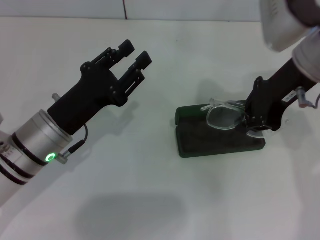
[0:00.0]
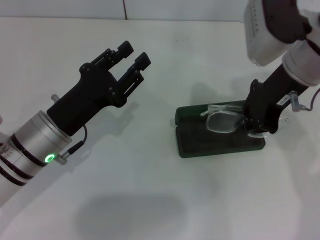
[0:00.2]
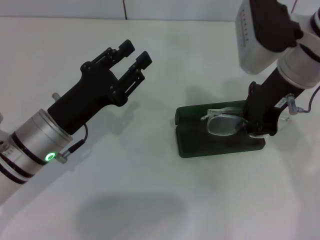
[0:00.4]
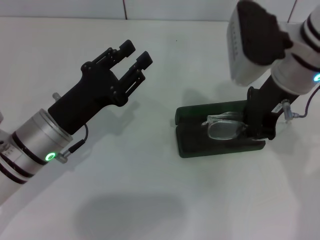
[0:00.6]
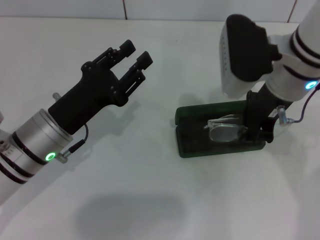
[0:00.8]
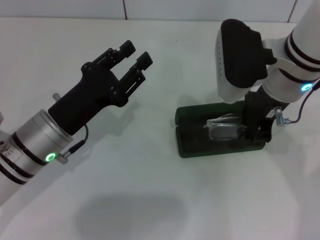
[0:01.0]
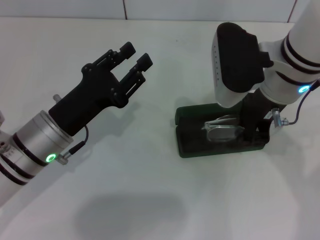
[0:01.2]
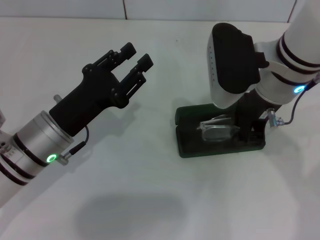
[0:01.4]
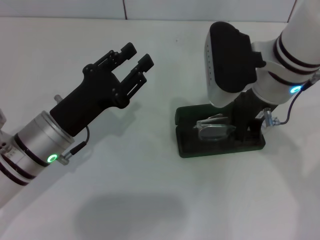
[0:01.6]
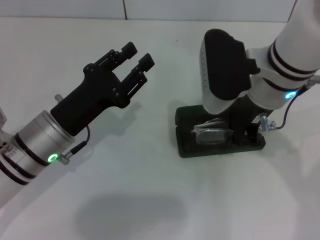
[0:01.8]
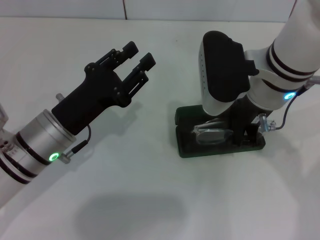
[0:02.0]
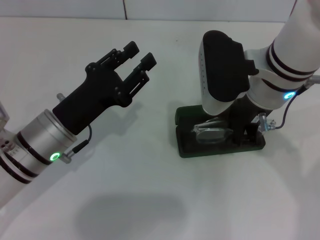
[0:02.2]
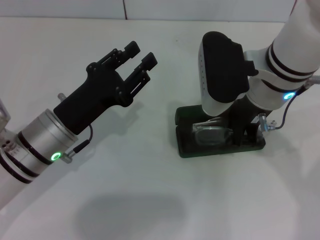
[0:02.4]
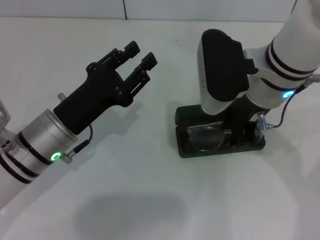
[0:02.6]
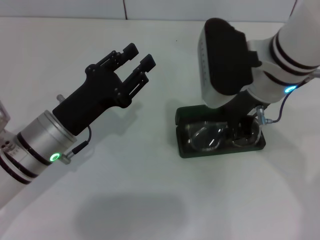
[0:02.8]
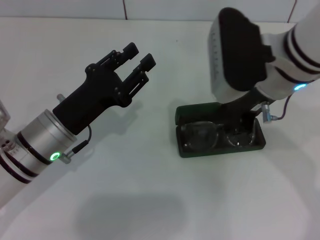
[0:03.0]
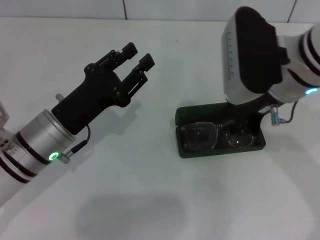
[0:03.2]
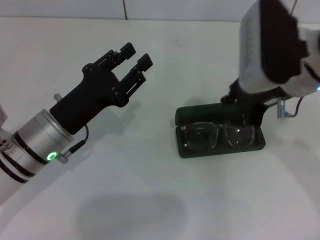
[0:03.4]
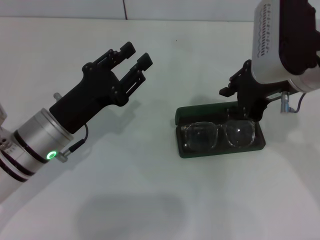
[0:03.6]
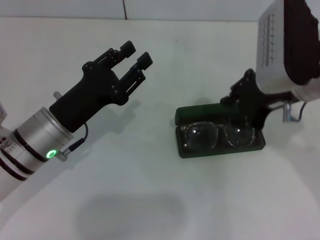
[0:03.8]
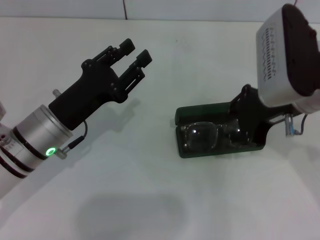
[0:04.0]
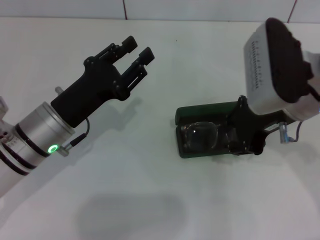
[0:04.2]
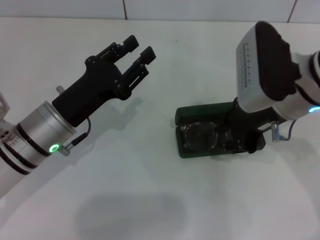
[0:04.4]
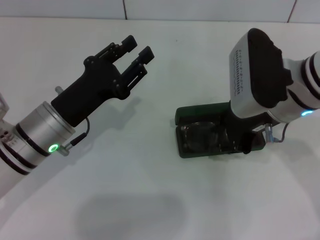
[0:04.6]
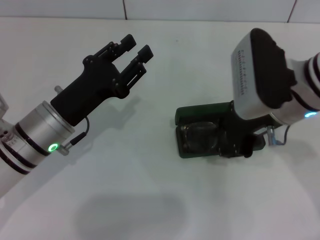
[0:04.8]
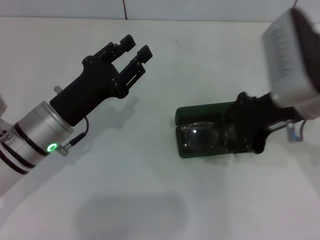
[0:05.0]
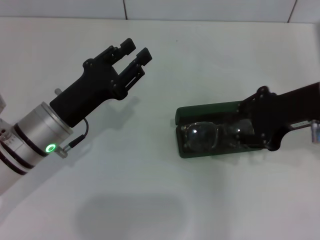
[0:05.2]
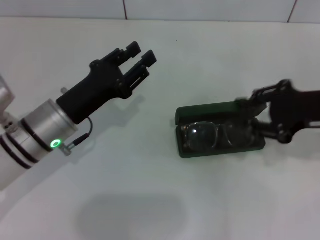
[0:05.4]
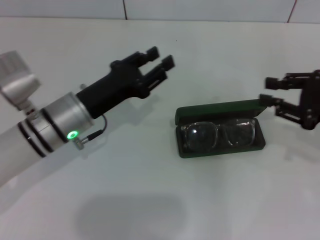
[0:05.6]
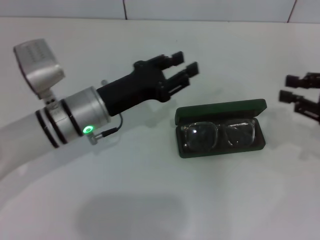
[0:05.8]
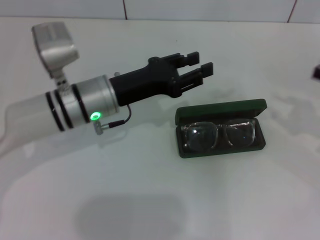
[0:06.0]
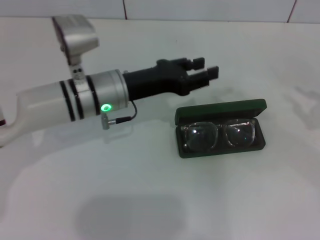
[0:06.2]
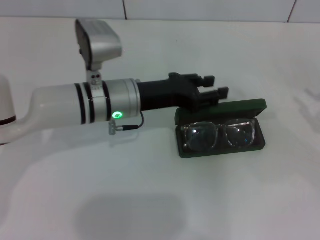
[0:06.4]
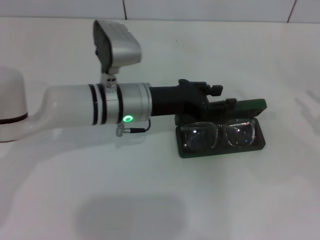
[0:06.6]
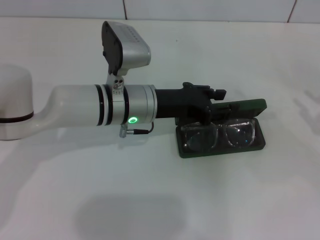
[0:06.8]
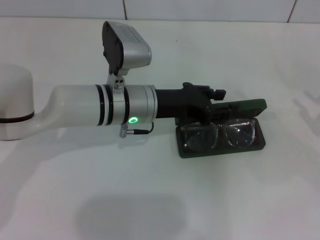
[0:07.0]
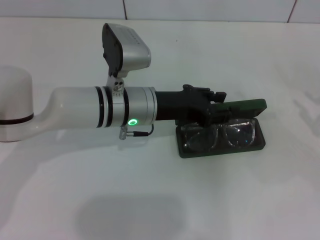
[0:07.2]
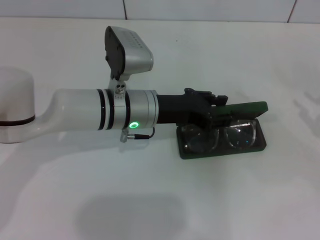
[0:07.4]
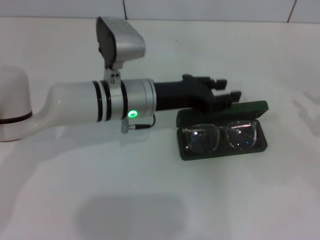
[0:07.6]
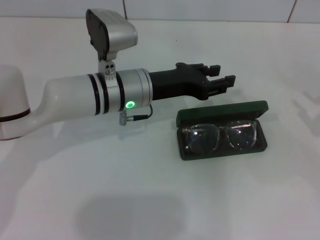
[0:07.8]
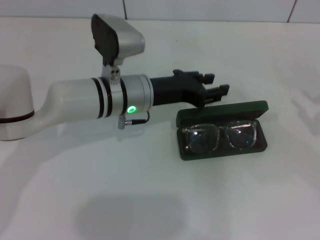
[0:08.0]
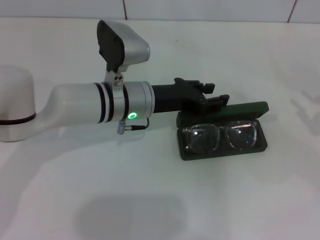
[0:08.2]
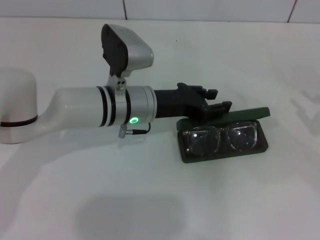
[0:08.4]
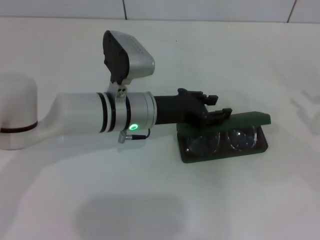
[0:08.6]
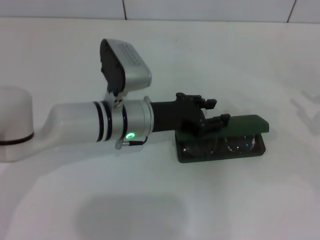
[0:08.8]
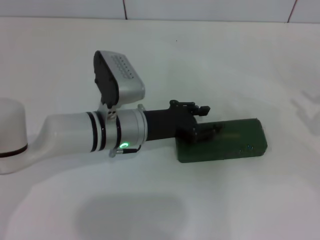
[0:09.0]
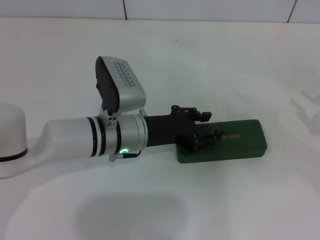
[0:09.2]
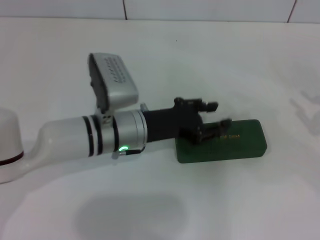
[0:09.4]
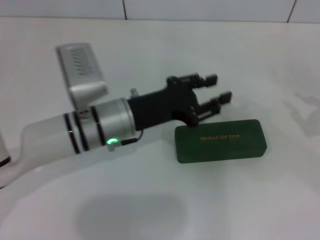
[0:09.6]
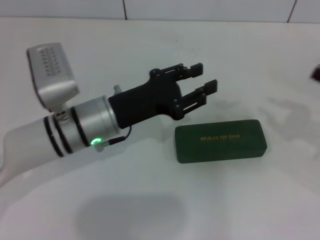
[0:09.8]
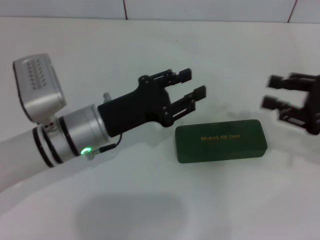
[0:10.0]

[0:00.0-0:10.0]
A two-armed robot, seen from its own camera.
Step, 0:00.0 to 0:02.8: Put the glasses into the case with your right hand.
Step, 0:03.0 to 0:08.8: Close the glasses case with your left hand.
0:00.0 to 0:01.4: The right gripper heads to the left, covering roughly 5 cm.
0:01.4 to 0:02.8: There are only small adjustments of the grippers.
0:02.8 to 0:04.2: The right gripper ends up approximately 5 cm from where it was.
0:04.2 to 0:05.8: The left gripper moves about 5 cm. The right gripper is displaced to the right by roughly 15 cm.
0:05.8 to 0:07.2: Both grippers move to the right, some 5 cm.
0:07.2 to 0:08.6: The grippers stay close to where they were, moving slightly.
0:08.6 to 0:10.0: The left gripper travels to the left and backward by about 10 cm, while the right gripper travels to the left by some 10 cm.

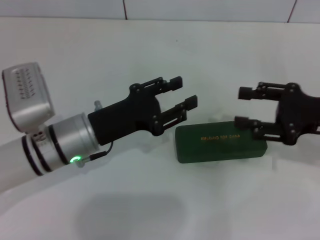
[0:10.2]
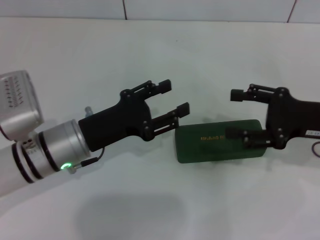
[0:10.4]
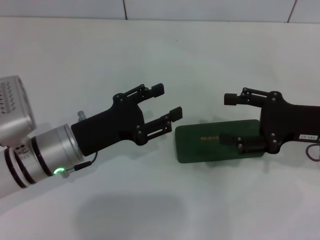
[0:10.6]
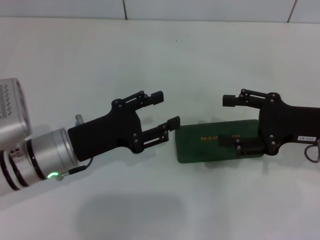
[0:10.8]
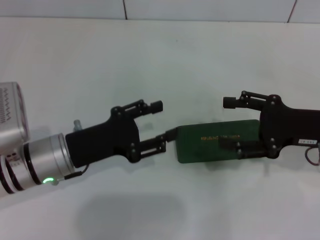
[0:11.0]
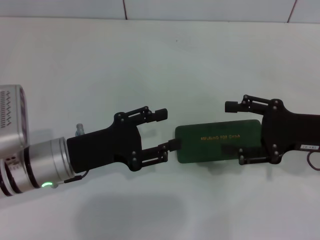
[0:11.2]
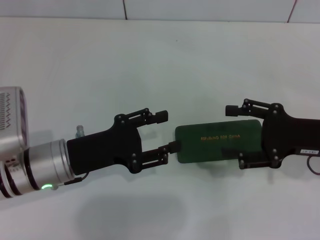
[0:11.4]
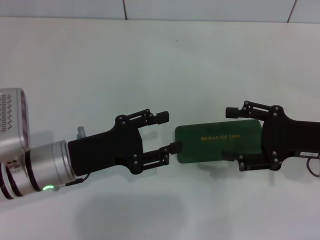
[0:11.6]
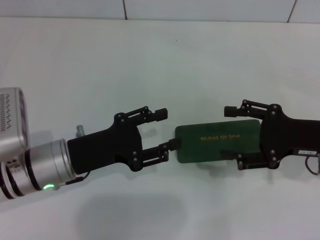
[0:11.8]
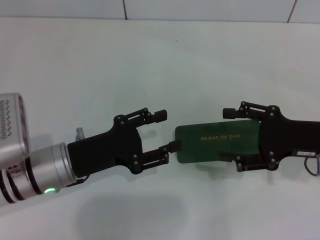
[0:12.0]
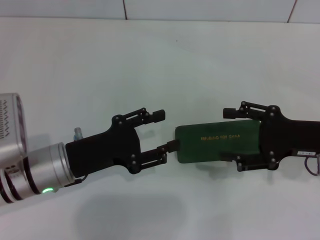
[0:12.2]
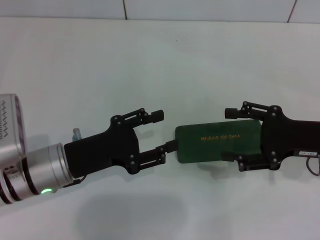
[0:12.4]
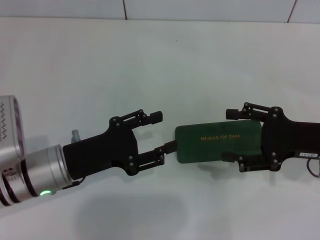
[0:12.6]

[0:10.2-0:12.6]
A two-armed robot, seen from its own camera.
0:10.2 to 0:11.4: The right gripper opens its fingers.
0:11.4 to 0:12.6: Neither gripper changes place.

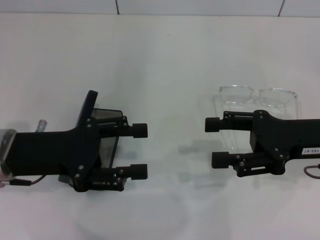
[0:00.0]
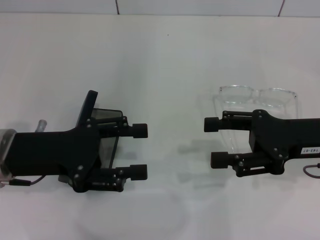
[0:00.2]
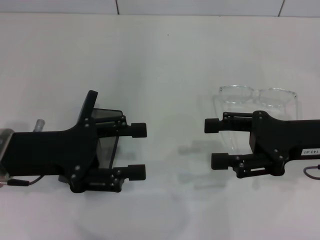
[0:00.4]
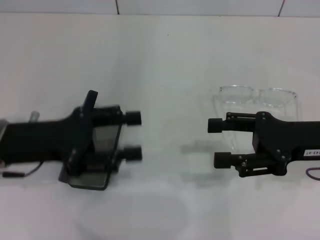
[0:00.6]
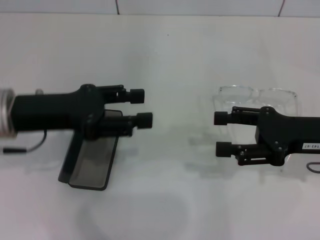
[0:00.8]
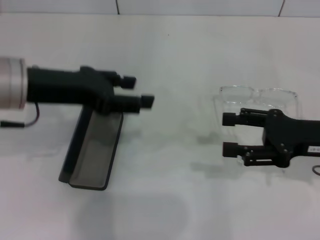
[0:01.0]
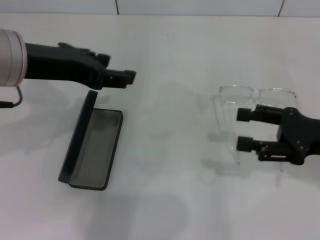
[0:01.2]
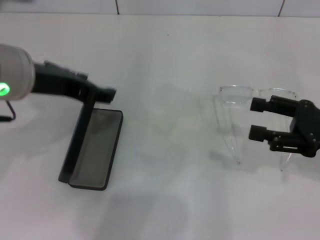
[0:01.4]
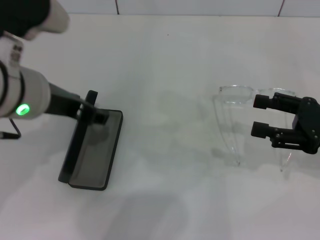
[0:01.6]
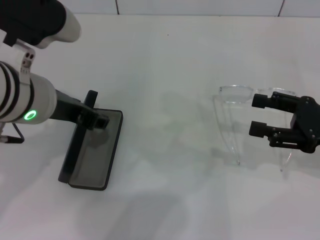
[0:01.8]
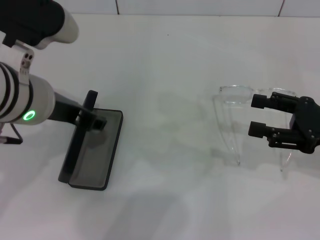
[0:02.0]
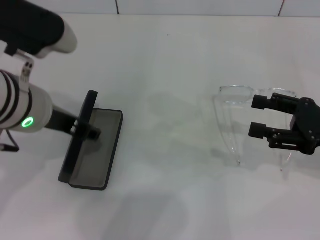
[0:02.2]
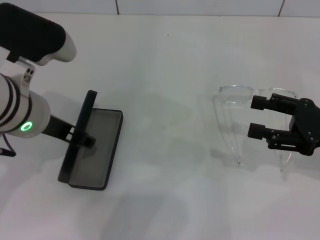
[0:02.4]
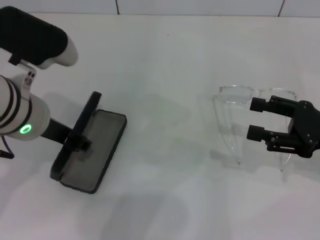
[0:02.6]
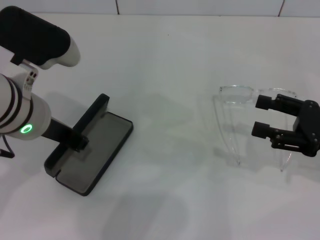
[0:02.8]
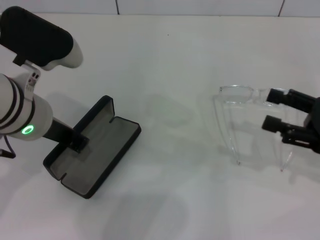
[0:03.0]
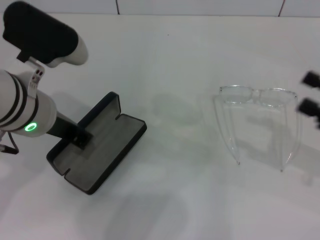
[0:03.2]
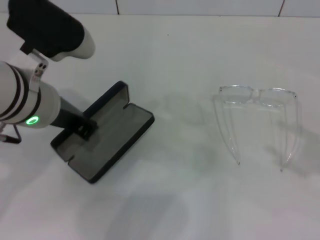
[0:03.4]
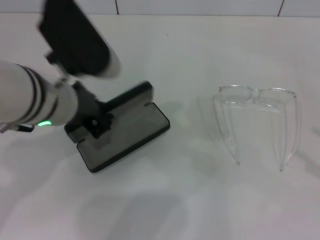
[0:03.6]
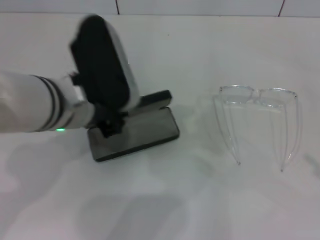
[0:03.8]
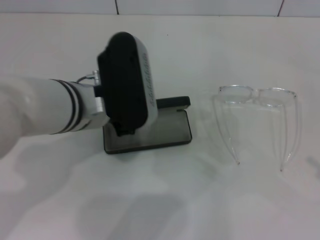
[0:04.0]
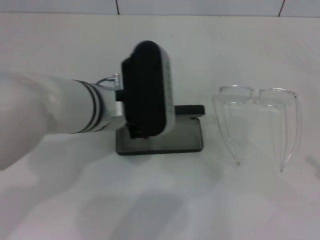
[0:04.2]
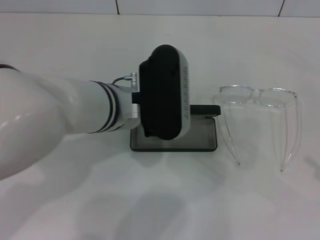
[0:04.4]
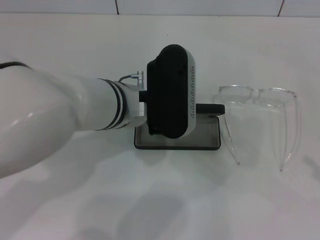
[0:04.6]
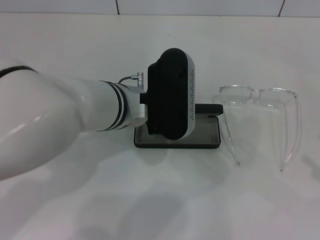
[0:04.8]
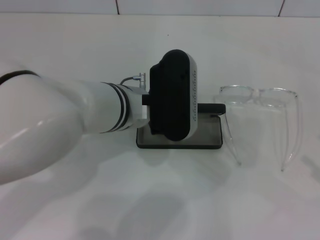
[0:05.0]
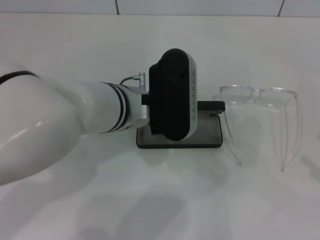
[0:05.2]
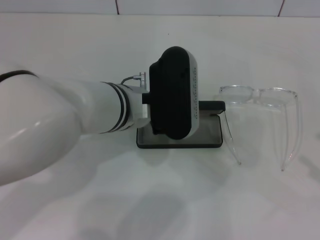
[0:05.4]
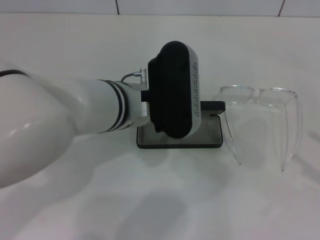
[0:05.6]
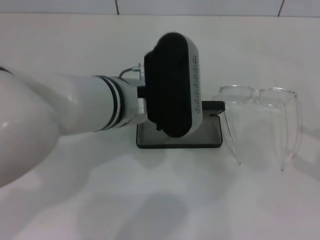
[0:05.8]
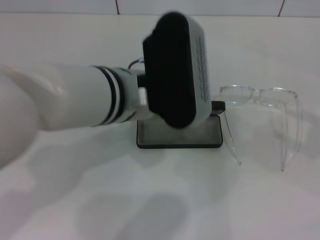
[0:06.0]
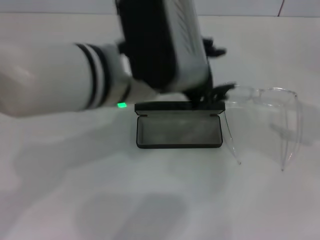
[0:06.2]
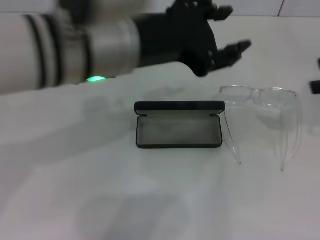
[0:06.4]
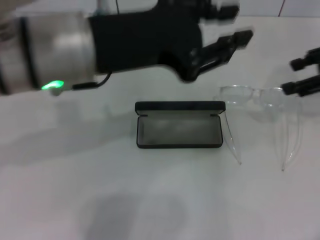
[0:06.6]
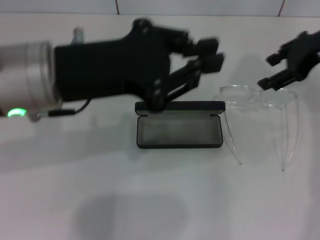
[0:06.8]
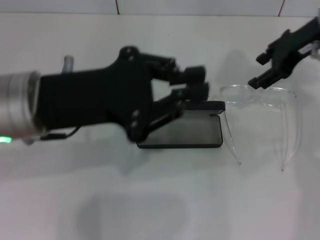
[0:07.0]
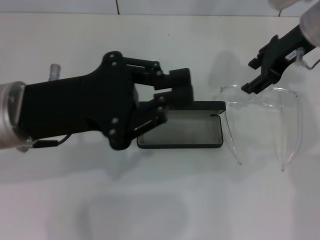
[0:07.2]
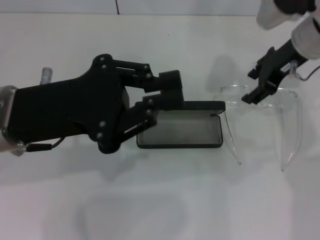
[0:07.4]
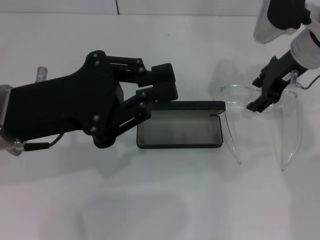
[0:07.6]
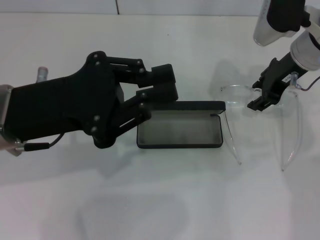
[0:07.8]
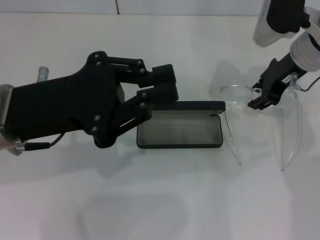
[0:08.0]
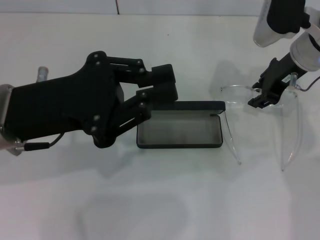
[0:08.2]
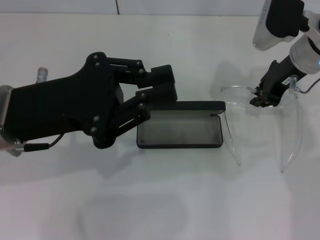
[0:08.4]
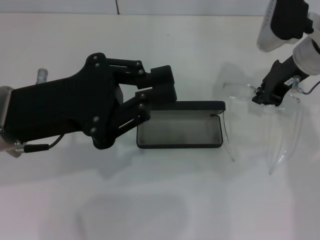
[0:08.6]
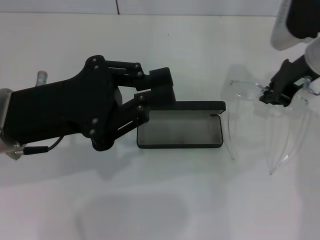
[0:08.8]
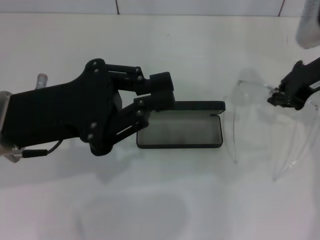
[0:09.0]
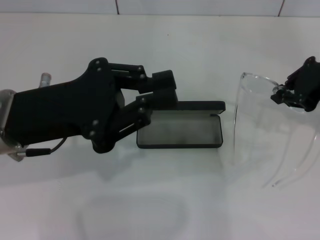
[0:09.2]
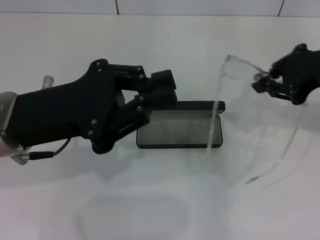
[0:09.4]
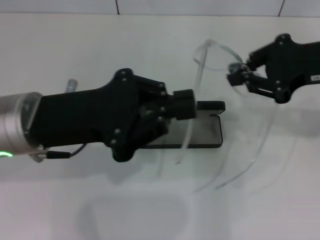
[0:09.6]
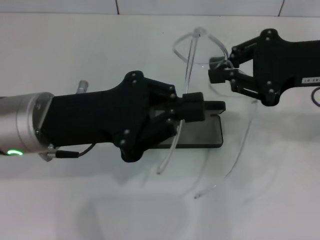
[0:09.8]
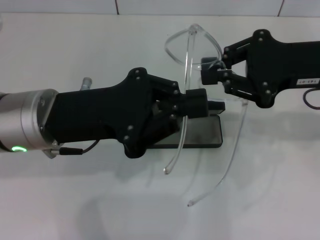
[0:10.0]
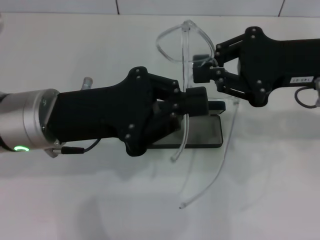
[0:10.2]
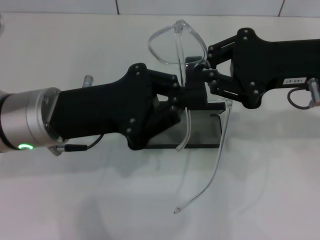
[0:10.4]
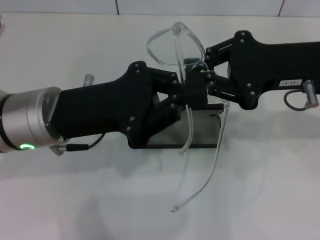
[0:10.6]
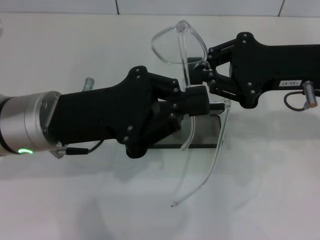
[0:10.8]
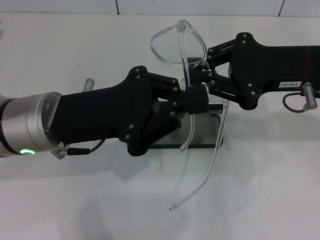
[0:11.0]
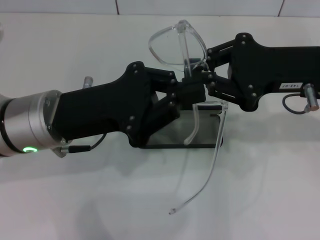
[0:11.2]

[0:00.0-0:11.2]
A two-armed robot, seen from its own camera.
Step, 0:00.0 to 0:02.8: Grab the glasses case with your left hand.
Step, 0:03.0 to 0:05.8: Place the glasses case in the center of the table with your left hand.
Step, 0:06.2 to 0:08.4: Grab the eyeglass frame with your right hand.
0:00.0 to 0:01.6: The right gripper moves to the right, about 5 cm. Meanwhile the left gripper goes about 10 cm upward and to the right.
0:01.6 to 0:03.2: The left gripper closes its fingers, while the right gripper shifts by roughly 5 cm.
0:03.2 to 0:04.8: The right gripper travels backward and to the right by approximately 10 cm. Meanwhile the left gripper goes approximately 10 cm to the right.
0:04.8 to 0:06.4: The right gripper is displaced forward and upward by about 20 cm; the left gripper is displaced upward by about 10 cm, and opens.
0:06.4 to 0:08.0: The right gripper heads to the left and forward, covering some 20 cm, and closes up. Meanwhile the left gripper heads to the left and downward, covering about 15 cm, and closes up.
0:08.0 to 0:09.6: The right gripper travels backward and upward by approximately 10 cm, and closes up.
